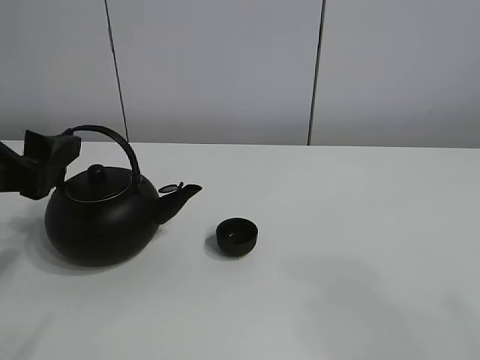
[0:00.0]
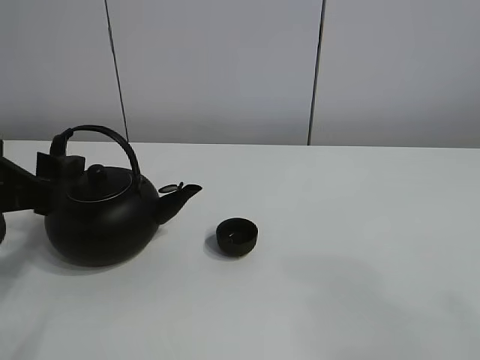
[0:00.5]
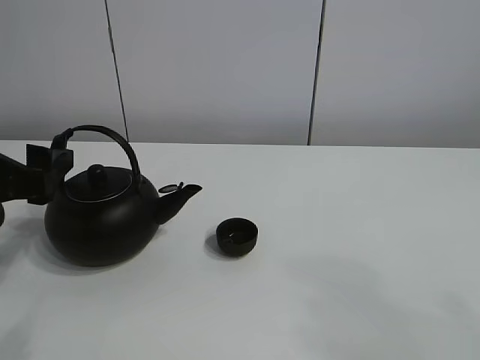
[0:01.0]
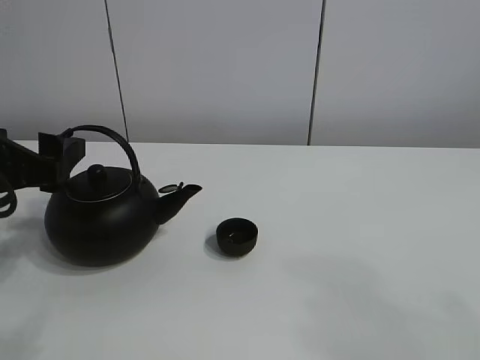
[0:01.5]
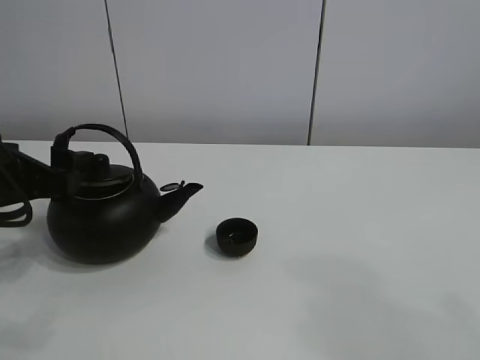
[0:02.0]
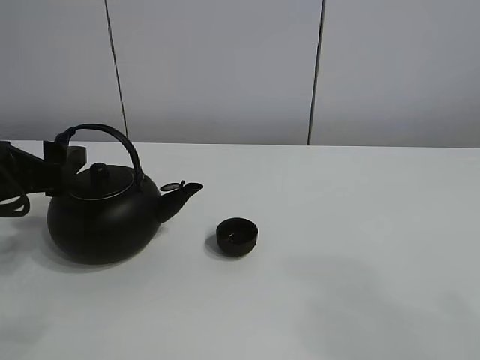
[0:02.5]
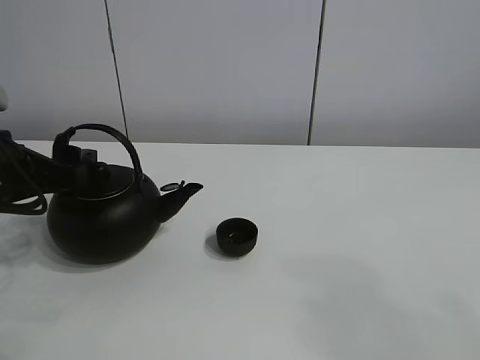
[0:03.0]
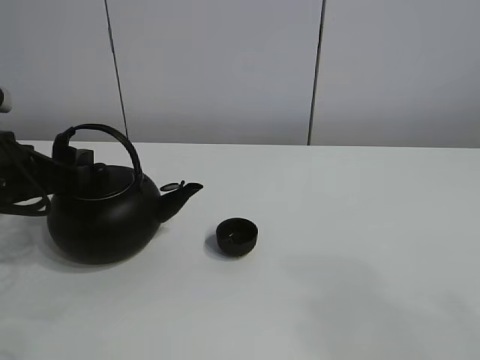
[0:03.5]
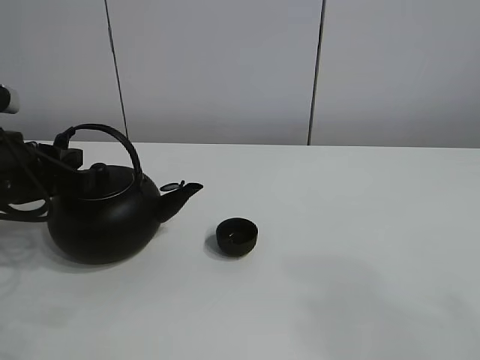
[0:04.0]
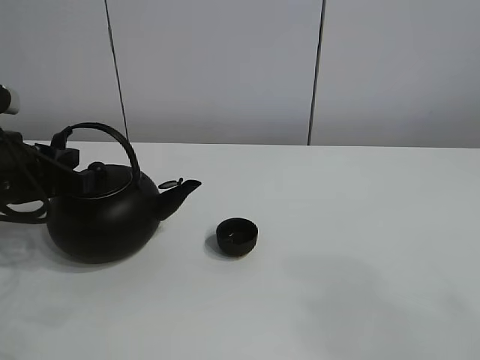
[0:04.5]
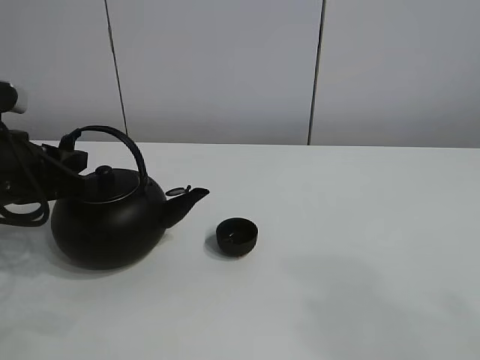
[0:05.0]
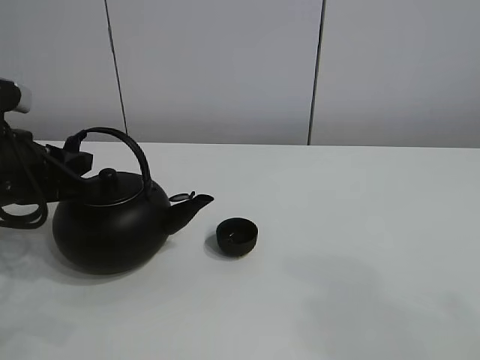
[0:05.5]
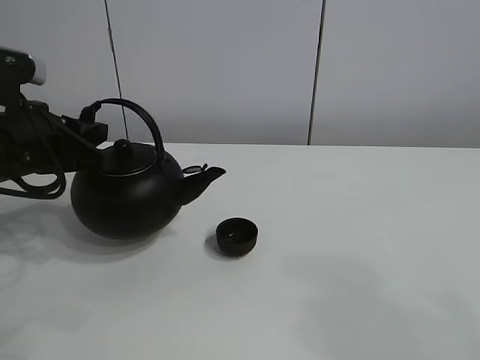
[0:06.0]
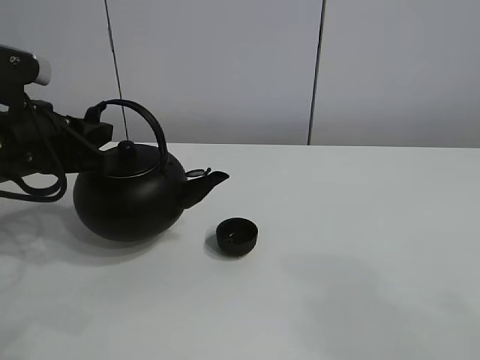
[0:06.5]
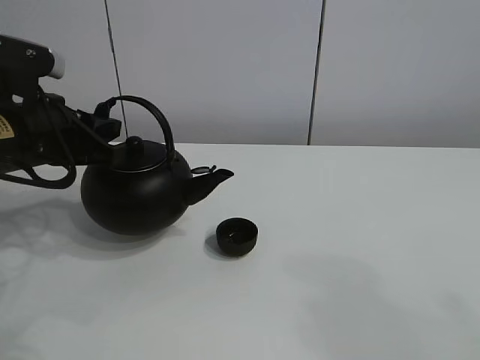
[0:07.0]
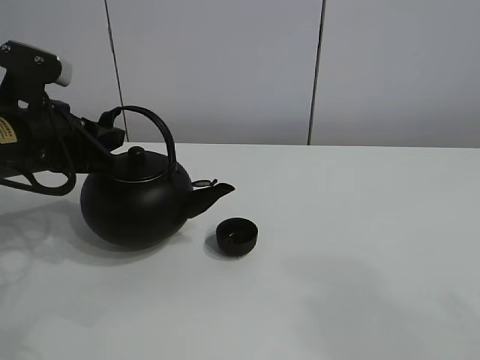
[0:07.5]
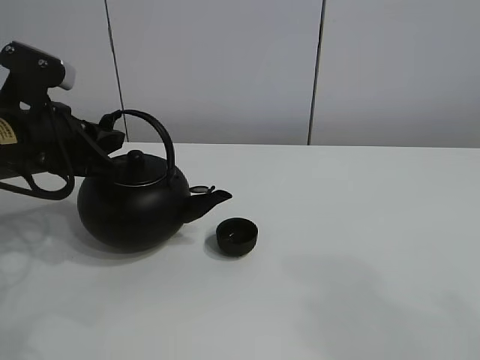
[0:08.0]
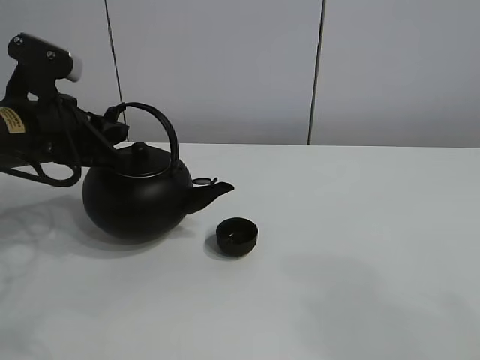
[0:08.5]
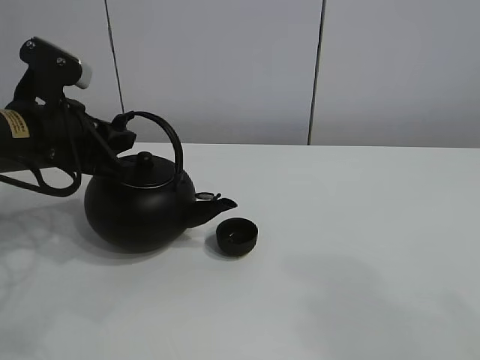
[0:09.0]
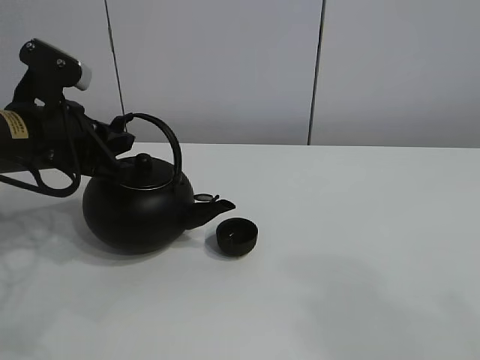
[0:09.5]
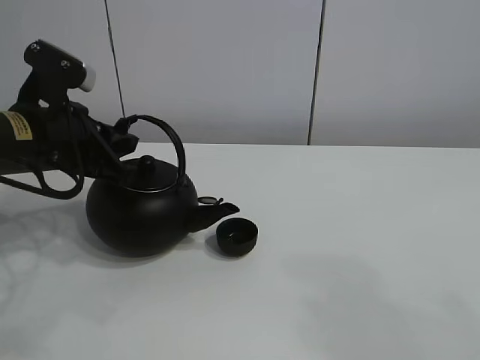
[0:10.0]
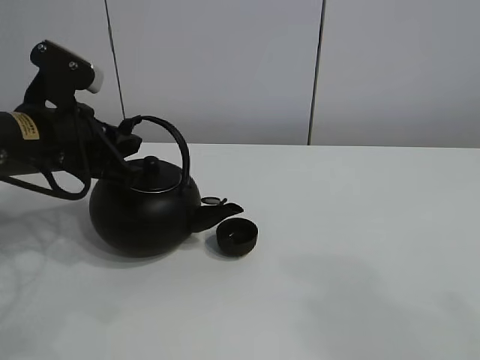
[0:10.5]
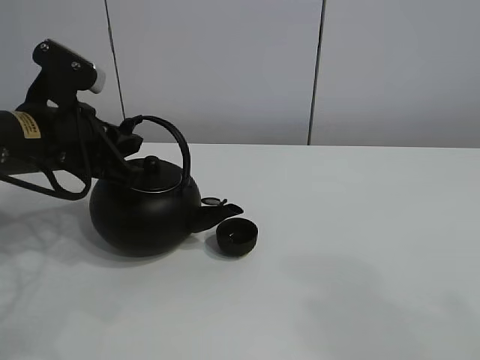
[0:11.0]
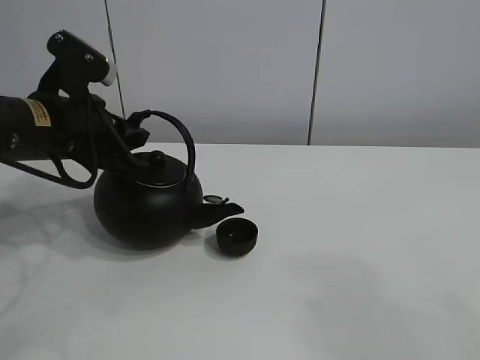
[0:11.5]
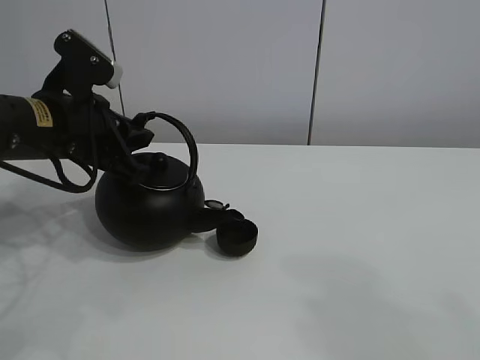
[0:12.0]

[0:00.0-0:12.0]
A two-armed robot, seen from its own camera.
Task of the whole recording: pour tea into the teacup.
Step, 0:00.0 to 0:05.5: Pick up the teapot with the left gripper.
0:00.0 to 0:02.0: The left gripper shifts by roughly 5 cm.
0:02.0 to 0:04.0: The left gripper closes.
0:04.0 to 0:08.0: The grippers stay close to where they were, moving slightly.
0:08.0 to 0:12.0: The grippers move only a little.

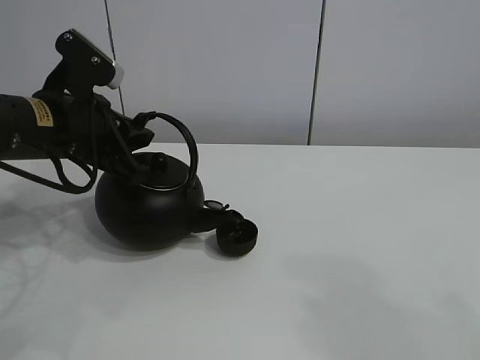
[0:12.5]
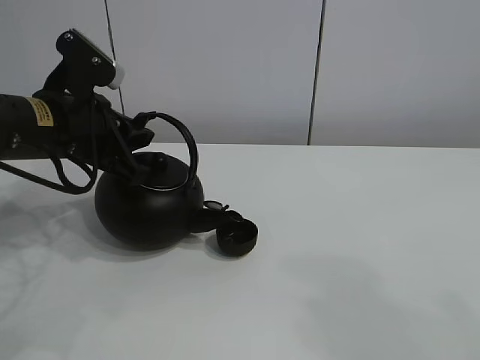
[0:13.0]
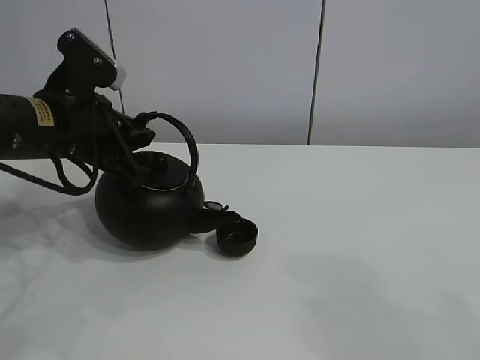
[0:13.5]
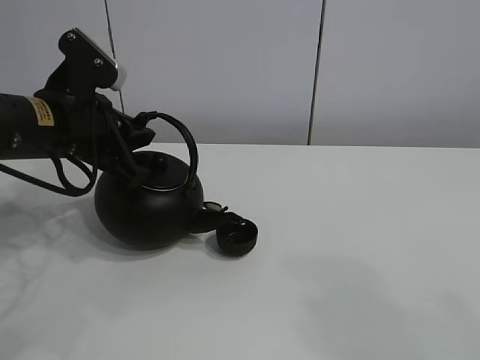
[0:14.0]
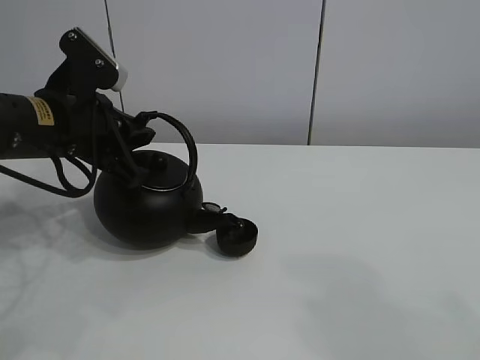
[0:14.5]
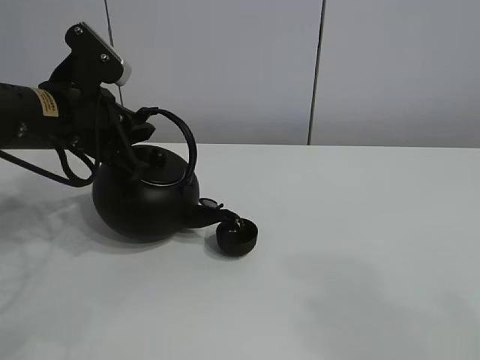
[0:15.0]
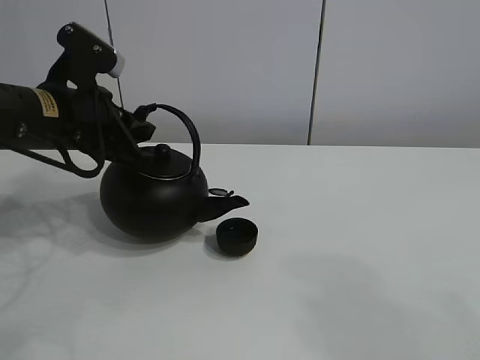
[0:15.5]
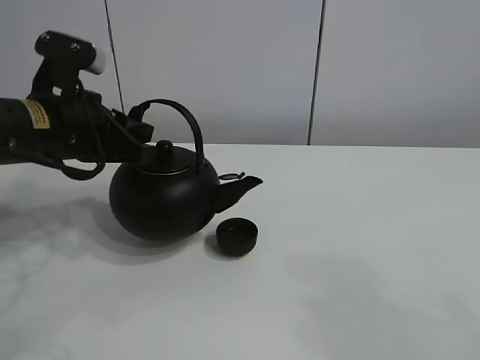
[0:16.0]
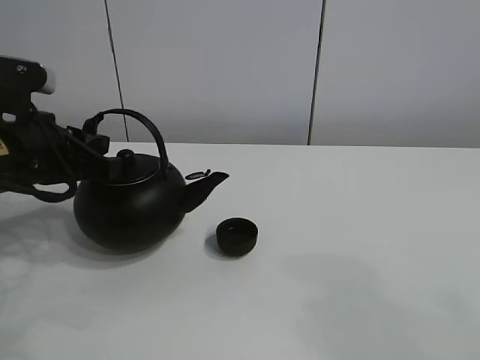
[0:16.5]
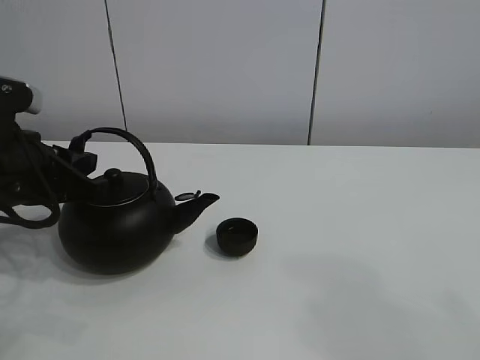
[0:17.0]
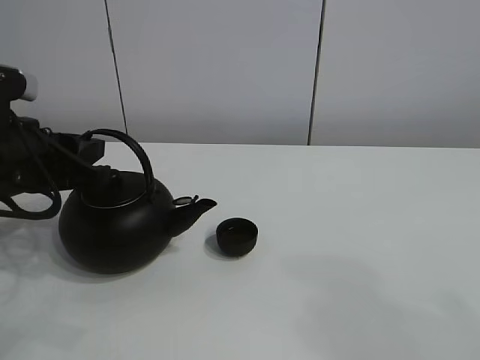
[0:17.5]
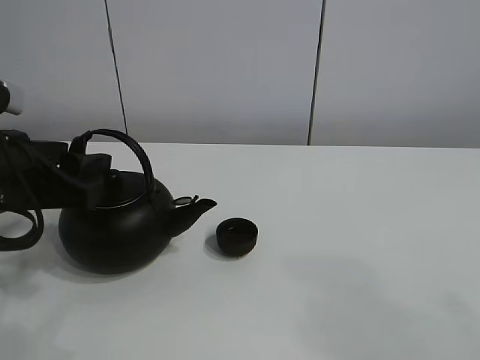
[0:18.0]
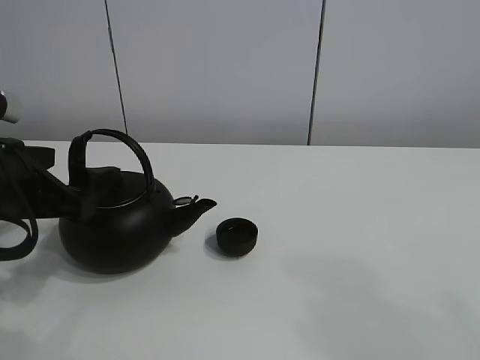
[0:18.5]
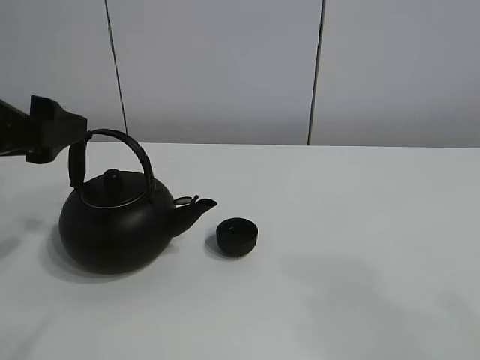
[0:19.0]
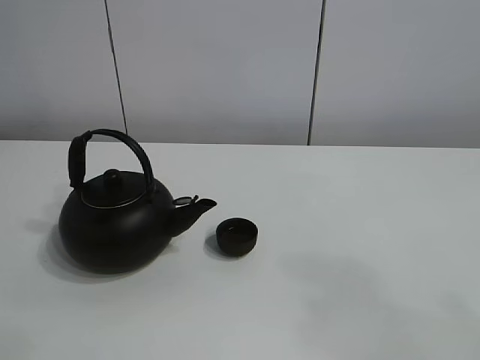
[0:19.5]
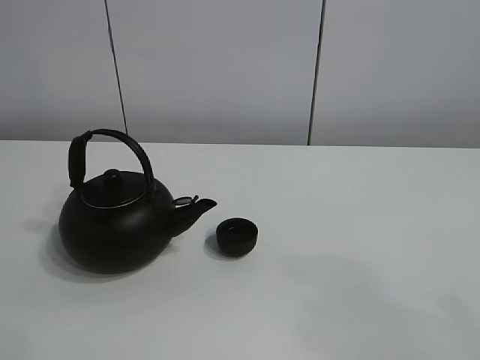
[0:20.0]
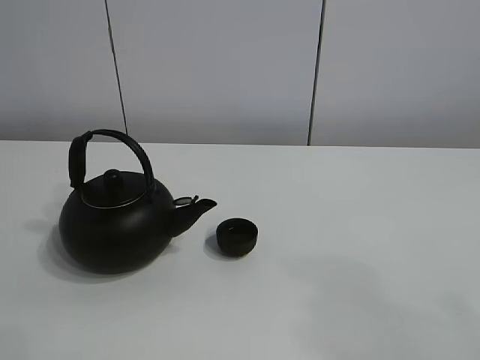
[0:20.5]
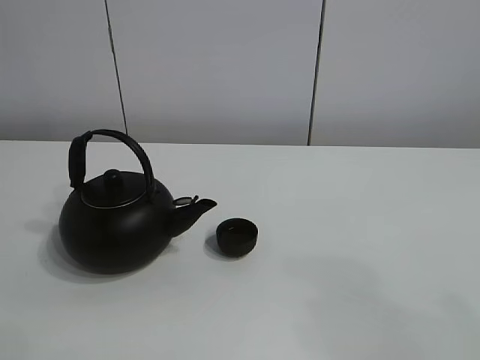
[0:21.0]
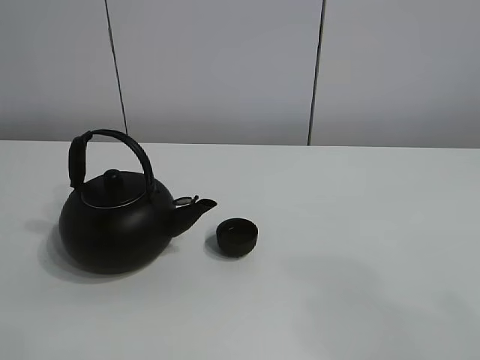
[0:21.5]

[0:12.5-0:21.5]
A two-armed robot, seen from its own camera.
Task of the whole recording: pour tea into the teacup.
Step, 0:12.5 to 0:15.5: Pour tea into the teacup with the left gripper.
0:12.5 to 0:14.5: Neither gripper changes place.
0:14.5 to 0:17.0: The left gripper goes roughly 5 cm backward.
0:17.0 to 0:19.5: The left gripper travels upward by about 25 cm, and opens up.

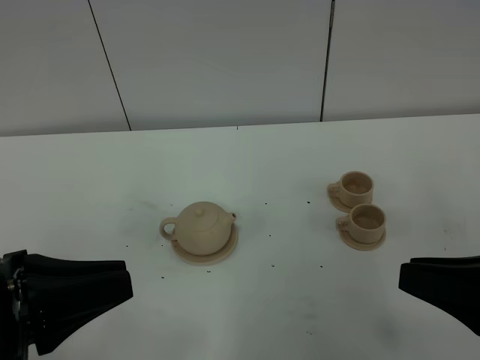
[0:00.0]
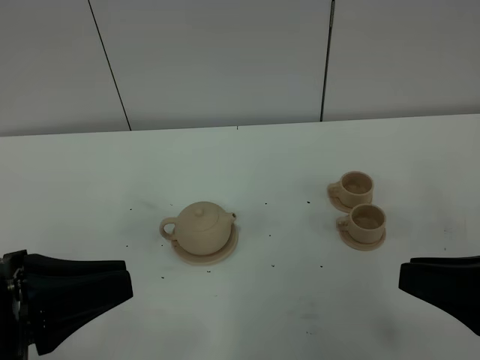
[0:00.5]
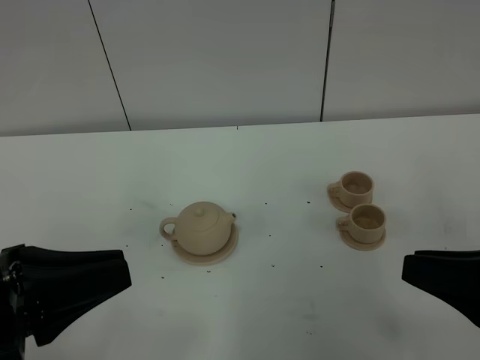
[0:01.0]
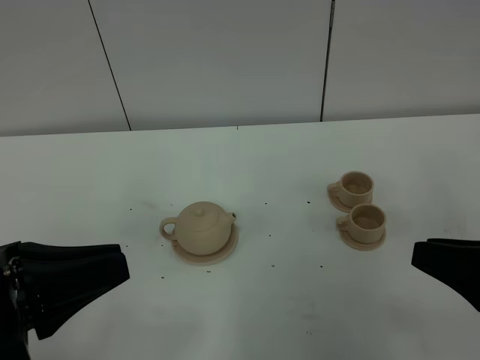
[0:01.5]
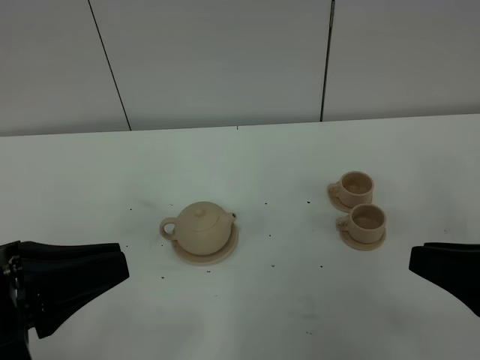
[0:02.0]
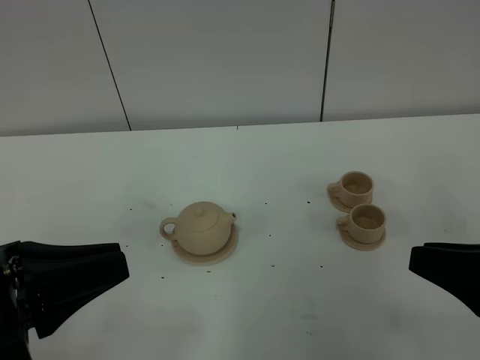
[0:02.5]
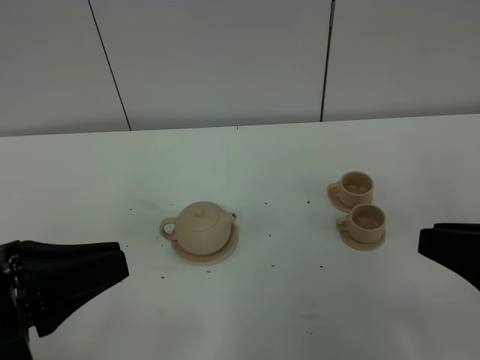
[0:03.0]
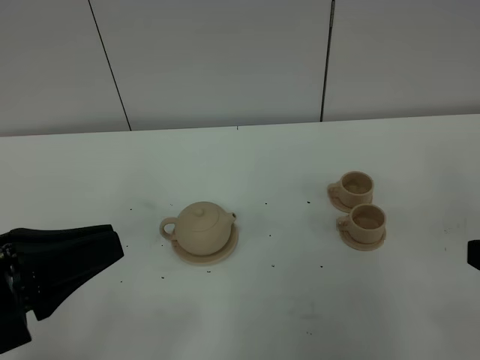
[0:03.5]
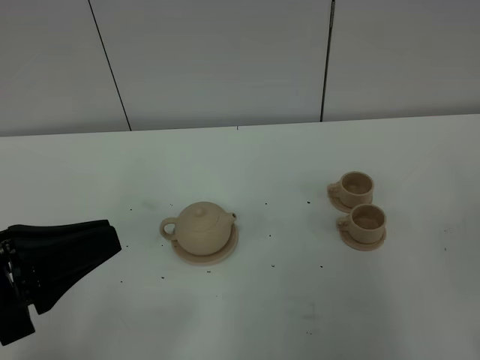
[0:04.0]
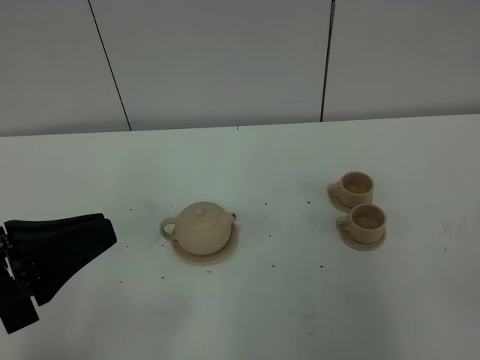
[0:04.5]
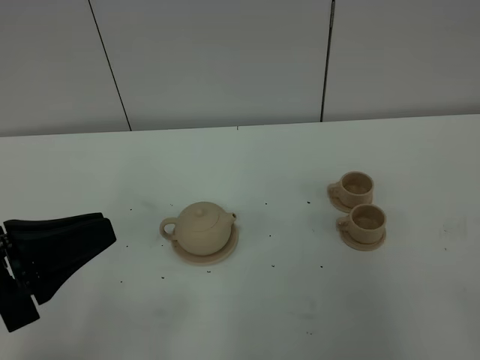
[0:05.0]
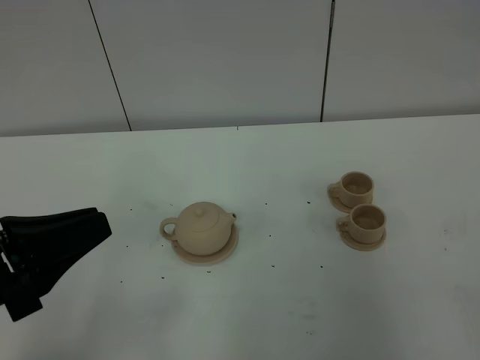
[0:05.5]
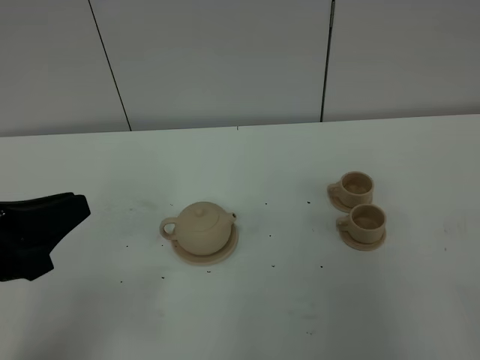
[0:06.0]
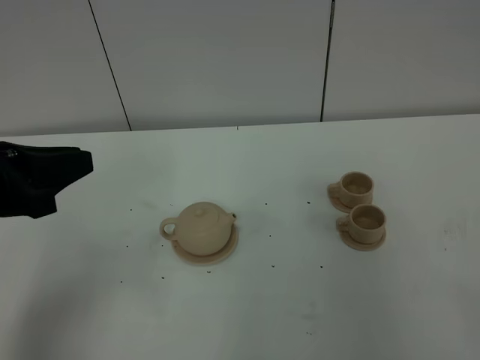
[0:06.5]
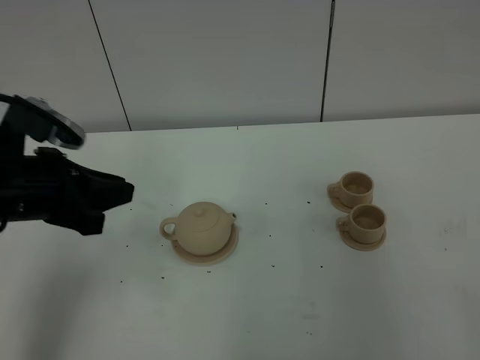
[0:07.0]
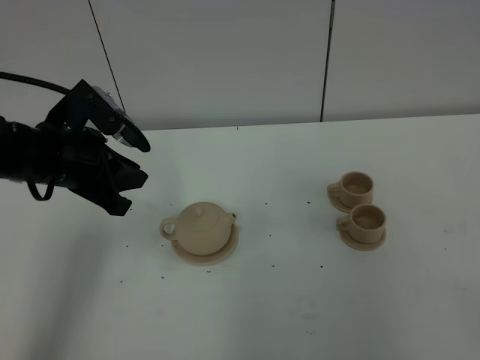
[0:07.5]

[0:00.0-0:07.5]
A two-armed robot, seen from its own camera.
Task of the whole recording: grasp the brown teapot and pour the tea into the two brown teacups one by one, put the brown teapot back in its original place.
0:00.0 to 0:02.0: The grippers stay close to where they were, moving slightly.
0:02.0 to 0:04.0: The right gripper travels backward by approximately 5 cm.
0:05.5 to 0:07.5: The left gripper goes about 20 cm forward.
